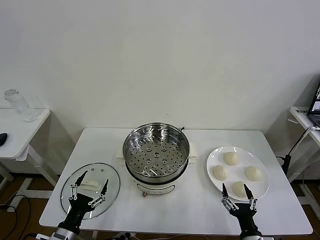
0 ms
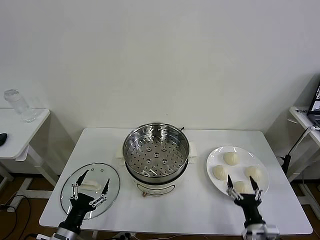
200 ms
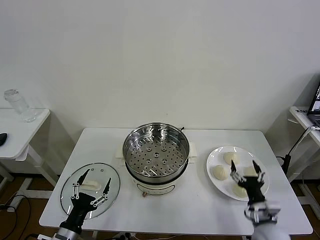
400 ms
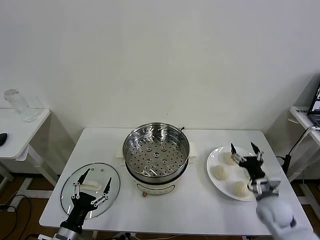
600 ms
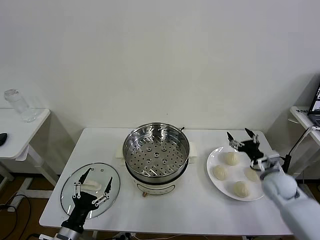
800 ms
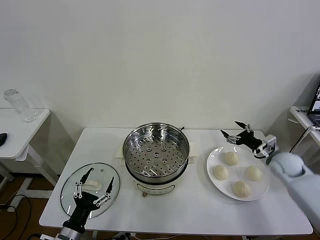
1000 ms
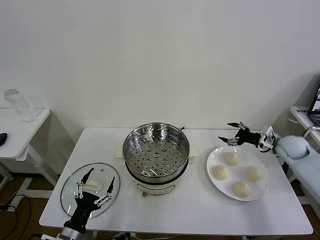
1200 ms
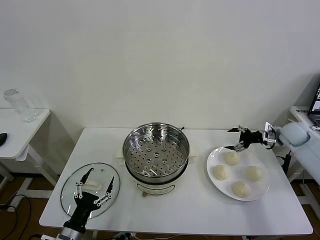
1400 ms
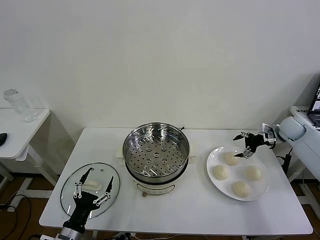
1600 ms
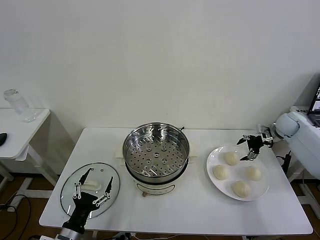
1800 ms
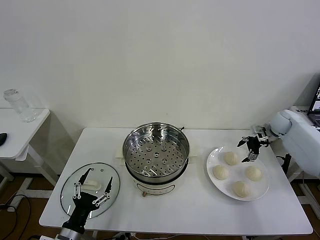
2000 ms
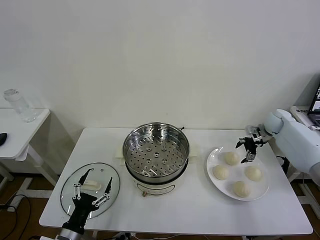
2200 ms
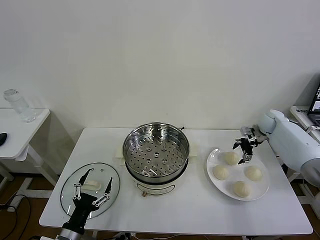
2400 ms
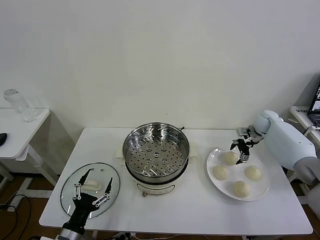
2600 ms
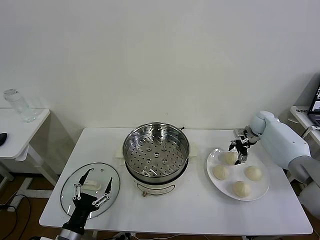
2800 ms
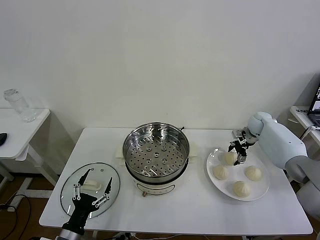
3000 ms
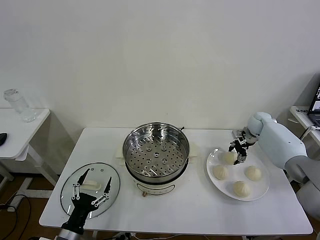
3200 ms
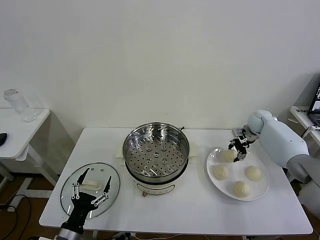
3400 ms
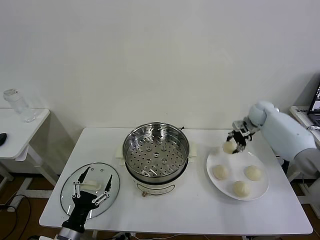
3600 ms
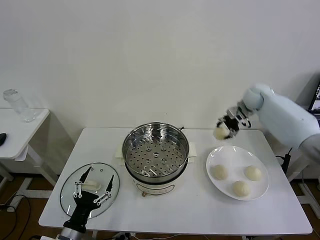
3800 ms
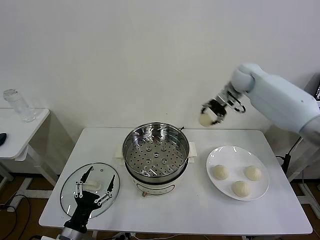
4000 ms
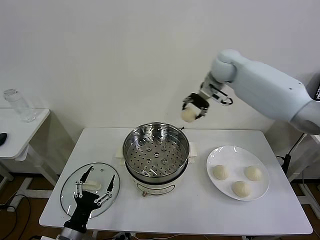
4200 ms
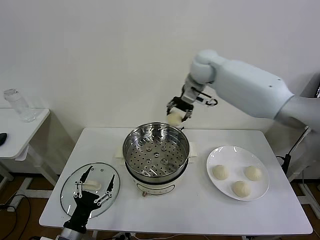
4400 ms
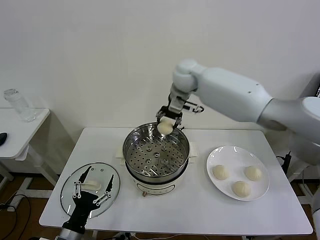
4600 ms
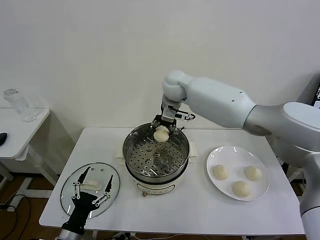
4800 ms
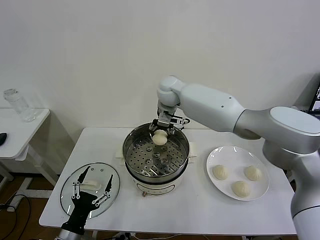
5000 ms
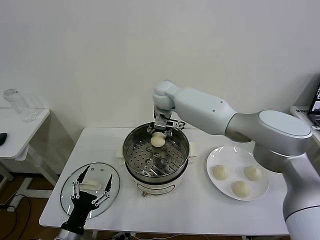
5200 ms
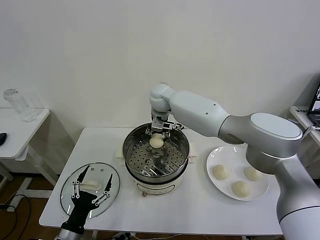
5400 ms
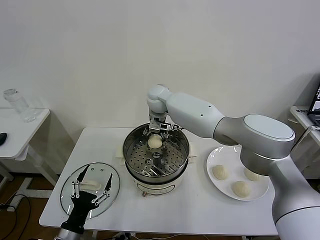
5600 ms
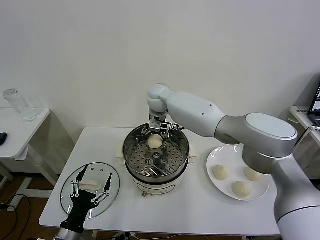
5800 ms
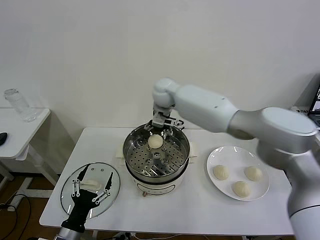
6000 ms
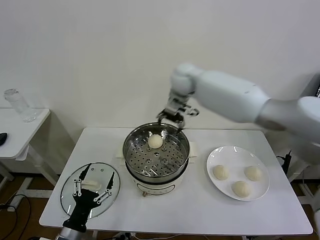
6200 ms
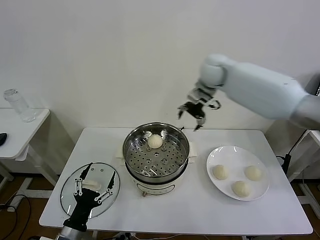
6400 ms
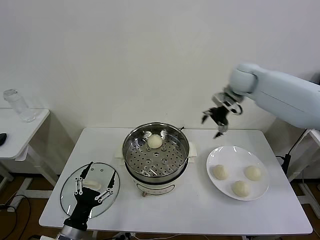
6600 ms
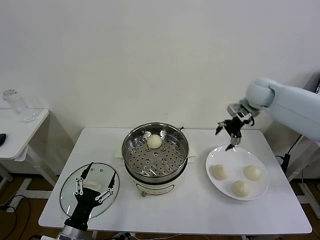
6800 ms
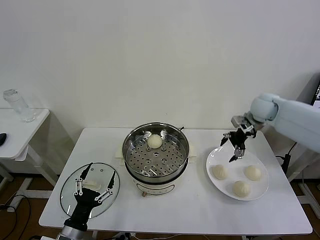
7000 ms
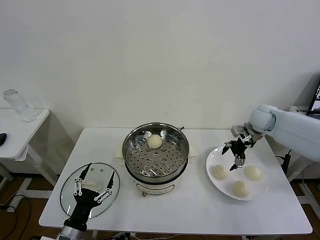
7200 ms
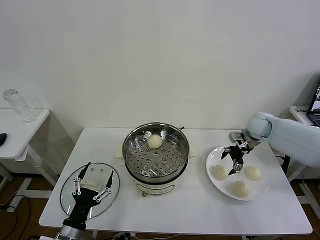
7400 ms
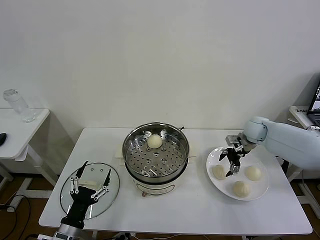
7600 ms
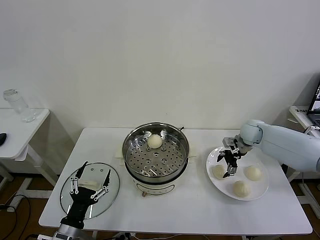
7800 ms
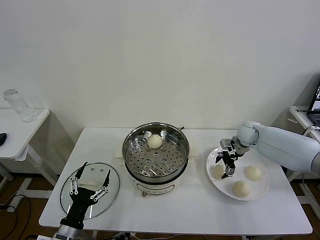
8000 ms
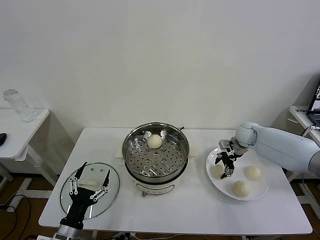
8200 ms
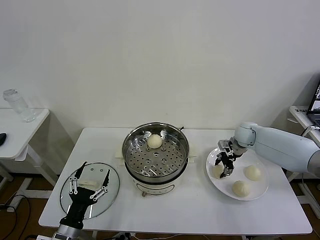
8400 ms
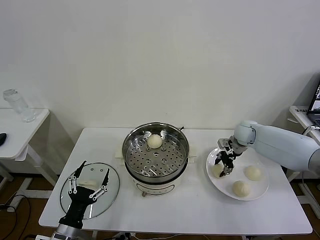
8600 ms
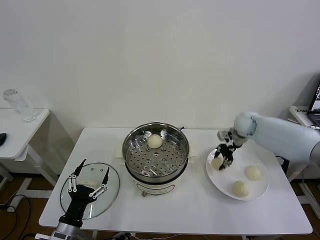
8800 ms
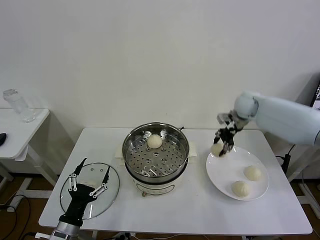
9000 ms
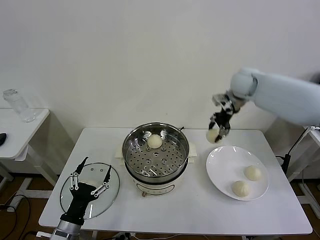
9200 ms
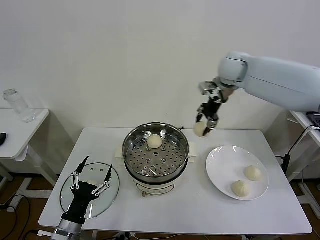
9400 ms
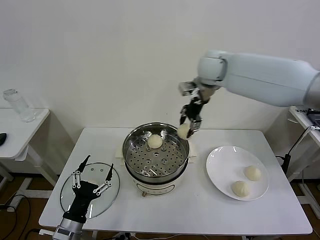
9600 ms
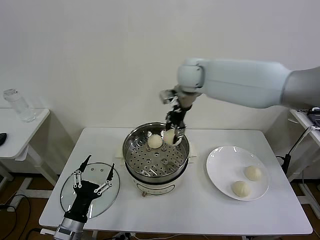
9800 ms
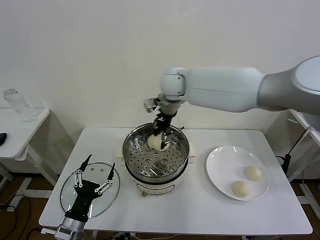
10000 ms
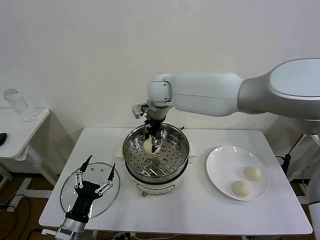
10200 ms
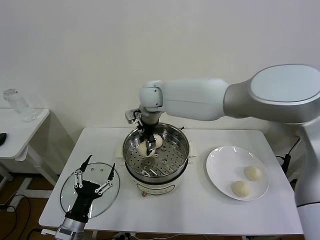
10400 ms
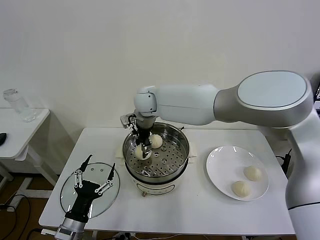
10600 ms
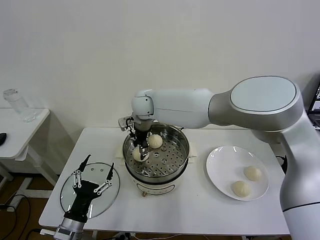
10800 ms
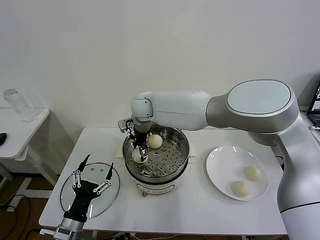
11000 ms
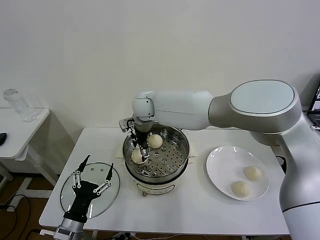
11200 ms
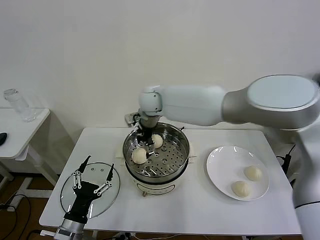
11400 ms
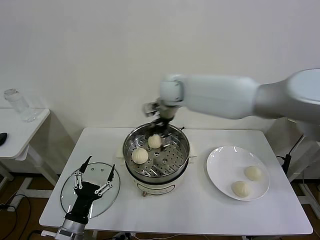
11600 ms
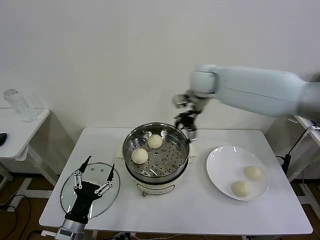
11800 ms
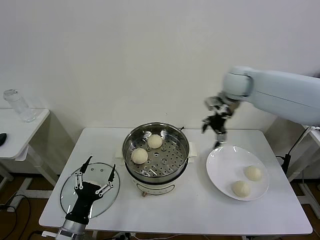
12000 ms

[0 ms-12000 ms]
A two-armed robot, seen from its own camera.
Task of the whole recording: take steamed baozi put them in steamer then cover it.
Step, 0 ms to 3200 ms: Grasp the baozi in the plate with right gripper.
Step, 3400 ms to 6000 ms: Place the baozi on the steamer with right gripper.
Step, 6200 ms to 8600 ms: Grasp the baozi in the plate with right gripper.
Step, 8800 ms to 11000 ms: Place the baozi on the steamer with right gripper.
1600 ms to 3000 ms: The right gripper goes some 10 cm to the left, forward and downward, and closes up.
3000 ms to 4400 ms: The right gripper moves to the left and upward, roughly 40 cm.
4400 ms to 6000 ms: The right gripper moves to the left, about 5 cm, and opens its fingers.
6000 ms to 7600 ms: The right gripper goes about 35 cm to the right and downward.
7600 ms to 9000 ms: The right gripper heads upward and to the left, covering approximately 15 cm, and closes its fingers.
9000 ms to 10400 ms: The right gripper heads to the left, covering some 35 cm.
10400 ms to 12000 ms: The right gripper is displaced to the right by some 30 cm, and opens its fingers.

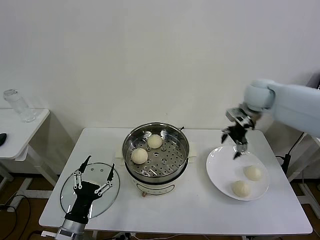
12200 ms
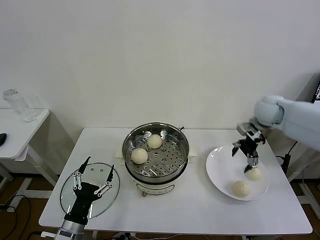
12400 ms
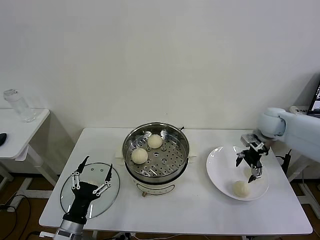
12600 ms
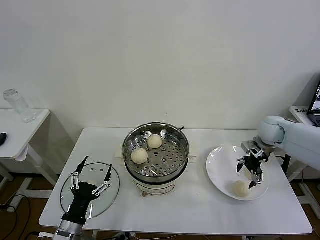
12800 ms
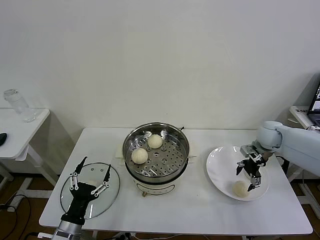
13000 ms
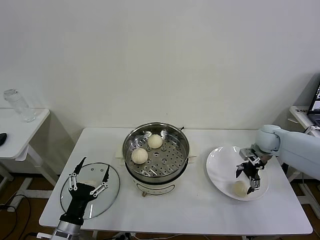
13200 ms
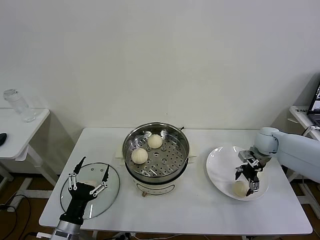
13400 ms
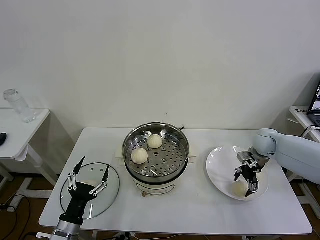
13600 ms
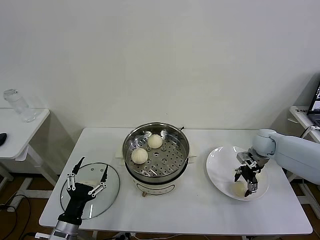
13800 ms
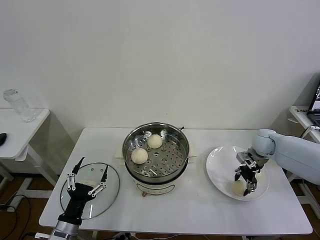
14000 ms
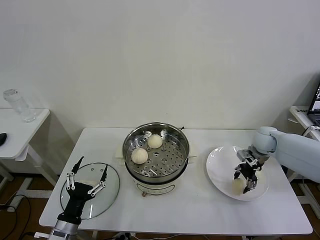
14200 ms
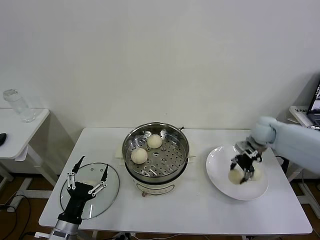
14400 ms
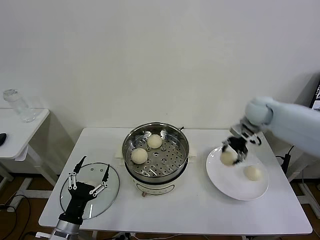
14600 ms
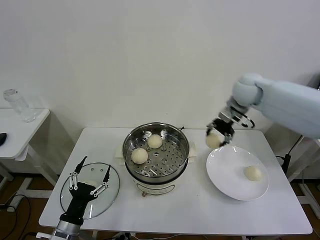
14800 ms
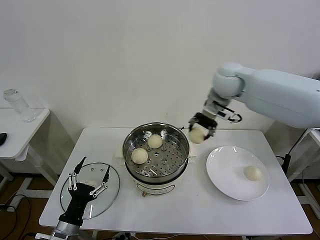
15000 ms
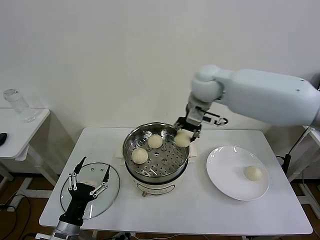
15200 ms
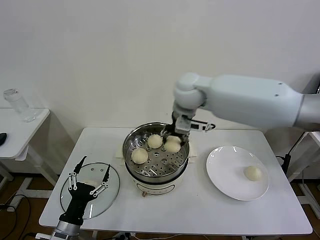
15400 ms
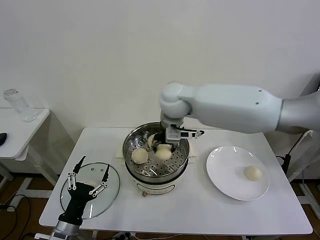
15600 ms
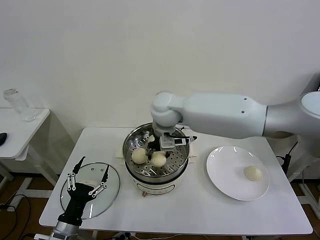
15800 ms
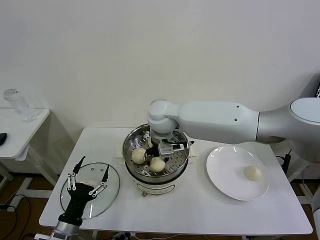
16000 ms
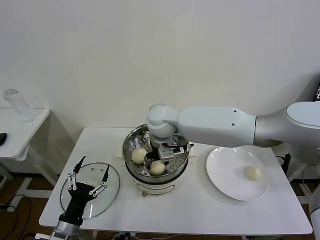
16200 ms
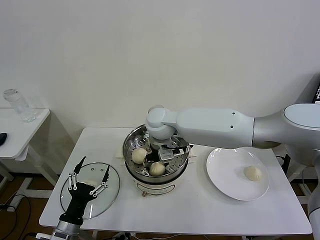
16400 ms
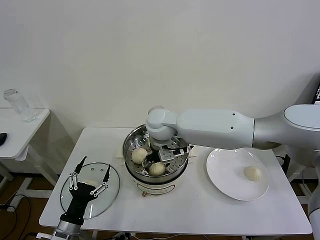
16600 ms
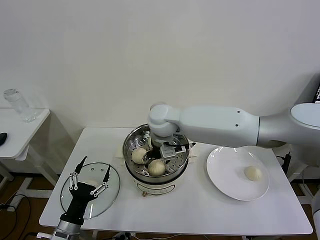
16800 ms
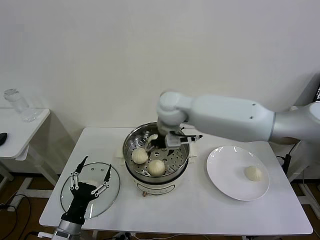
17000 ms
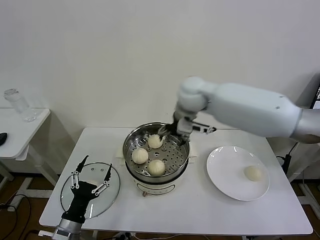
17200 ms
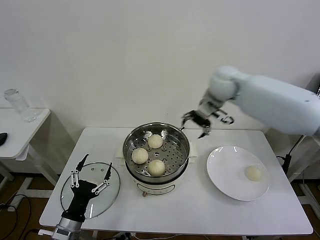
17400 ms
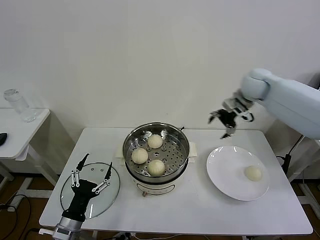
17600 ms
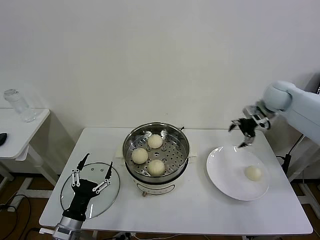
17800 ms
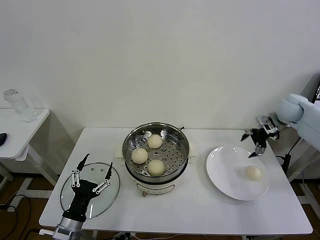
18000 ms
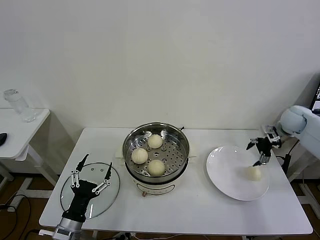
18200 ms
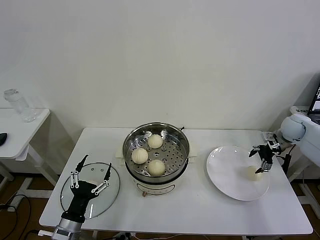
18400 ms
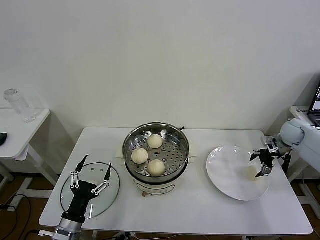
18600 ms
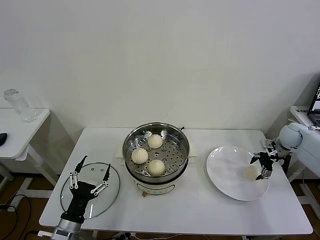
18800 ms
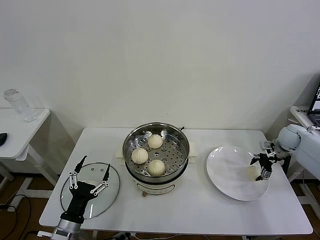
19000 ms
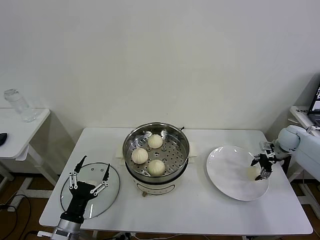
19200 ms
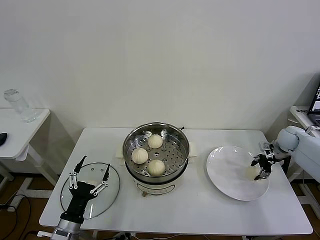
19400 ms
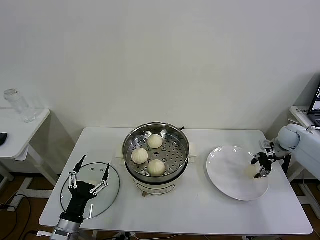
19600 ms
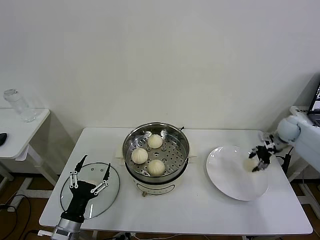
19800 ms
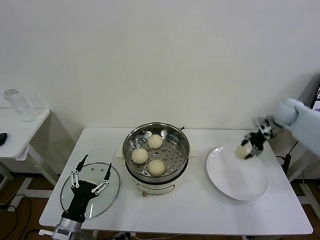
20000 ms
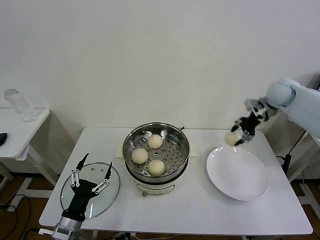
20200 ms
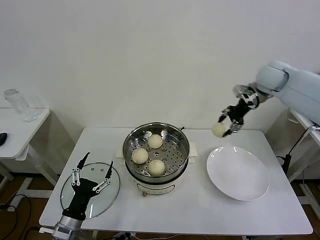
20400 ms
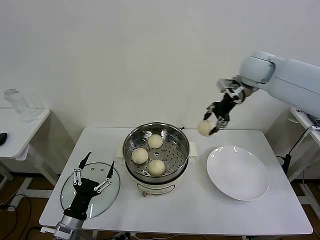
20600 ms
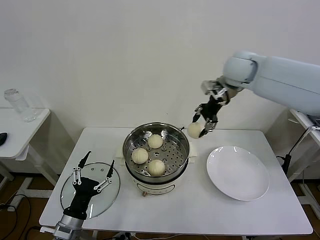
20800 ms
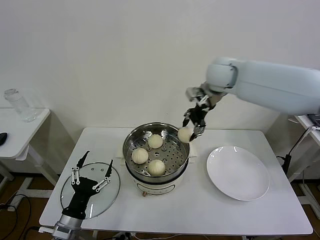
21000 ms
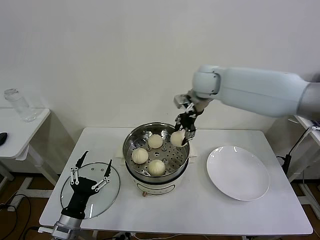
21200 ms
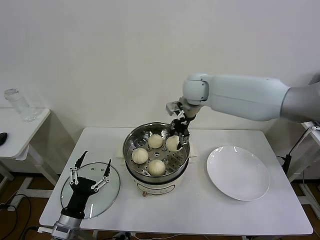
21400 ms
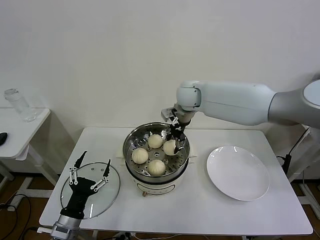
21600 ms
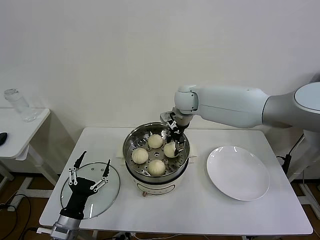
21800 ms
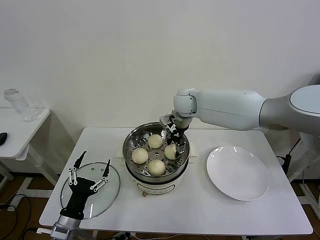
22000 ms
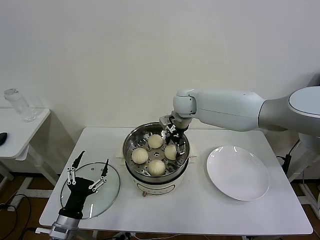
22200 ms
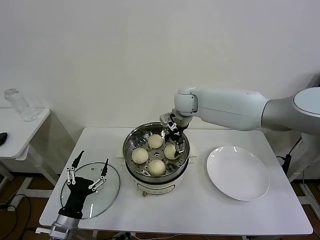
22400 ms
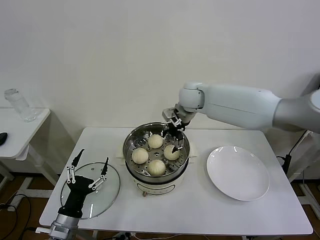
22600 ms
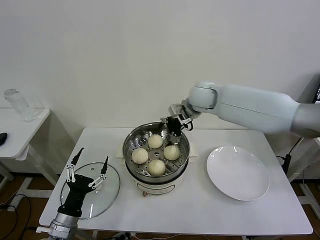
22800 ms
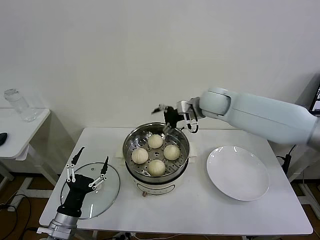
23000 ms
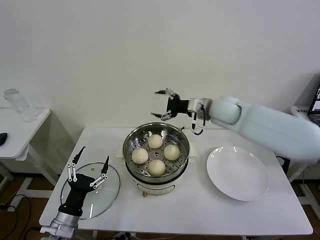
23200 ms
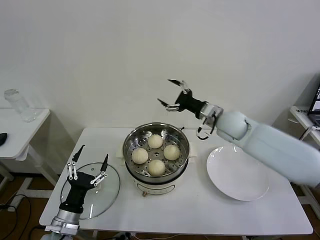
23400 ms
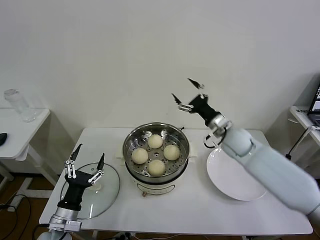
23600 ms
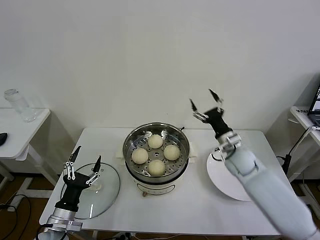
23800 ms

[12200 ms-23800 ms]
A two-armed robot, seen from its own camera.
Task of the whole recording: take steamed baozi put them in steamer then cover it.
Step, 12200 ms to 14000 ms: Grasp the baozi in the plate with right gripper.
Step, 14200 ms to 16800 ms: Place the baozi on the steamer with right gripper.
Step, 17000 ms to 19400 ms: Grasp the baozi in the plate with right gripper.
Step, 19800 ms to 22400 ms: Place the baozi on the steamer with right gripper.
12200 ms to 13600 ms: The right gripper moves downward, approximately 15 cm.
13600 ms to 15000 ms: The right gripper shifts roughly 35 cm upward and to the left, and closes.
15000 ms to 16600 ms: The right gripper heads to the left and downward, covering about 20 cm, and opens up.
16600 ms to 18000 ms: The right gripper heads to the right, covering some 50 cm.
18000 ms to 19400 ms: The right gripper is displaced downward and to the right by about 15 cm, and closes up.
19400 ms to 21000 ms: The right gripper is displaced to the left and upward by some 40 cm.
21000 ms to 22400 ms: The right gripper is displaced downward and to the left by some 15 cm, and opens.
22400 ms to 23800 ms: The right gripper moves to the right, downward and backward, approximately 30 cm.
